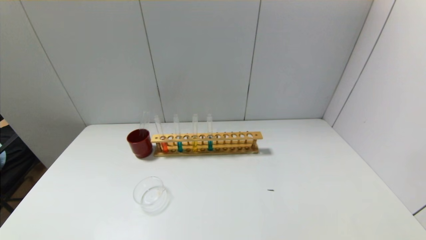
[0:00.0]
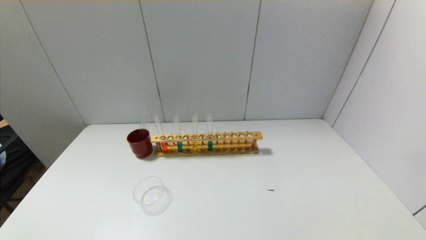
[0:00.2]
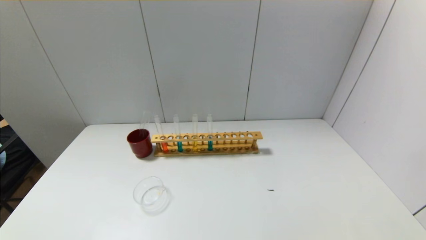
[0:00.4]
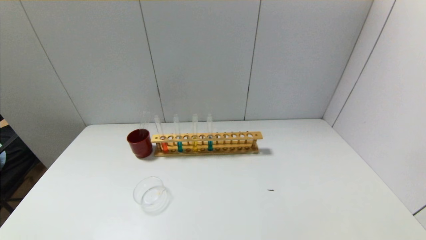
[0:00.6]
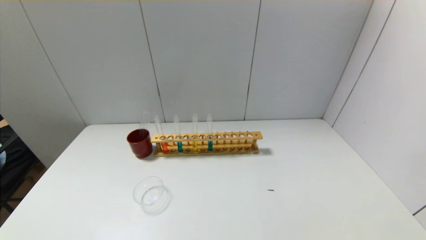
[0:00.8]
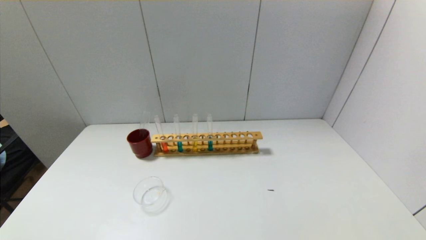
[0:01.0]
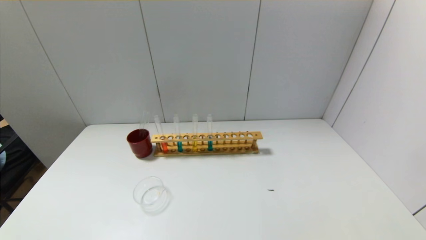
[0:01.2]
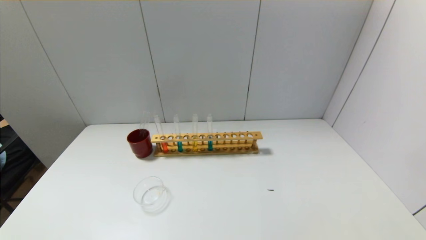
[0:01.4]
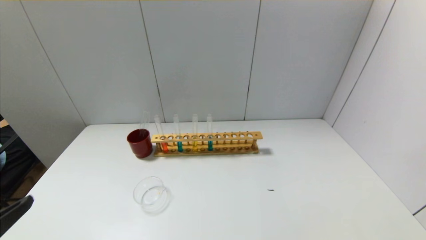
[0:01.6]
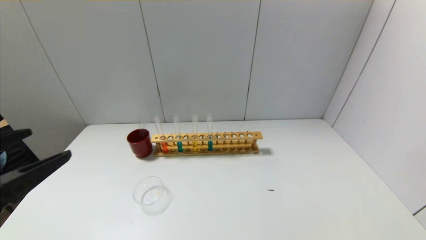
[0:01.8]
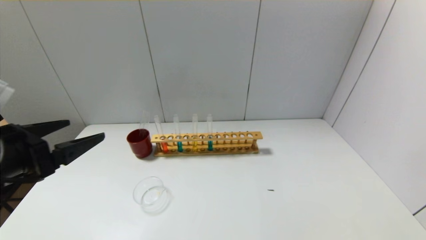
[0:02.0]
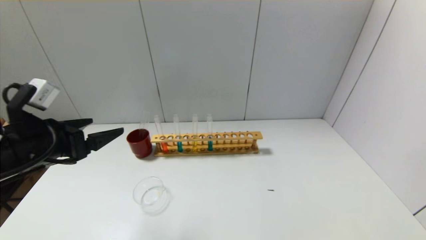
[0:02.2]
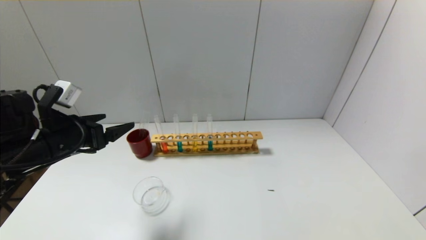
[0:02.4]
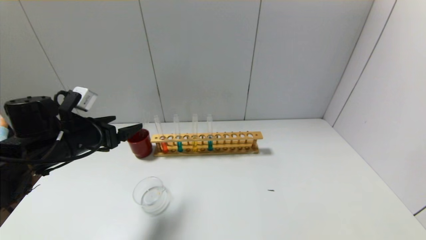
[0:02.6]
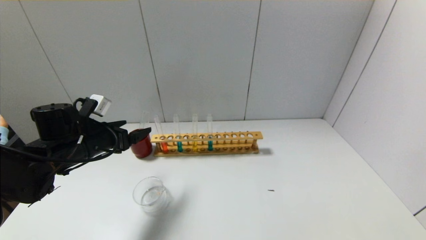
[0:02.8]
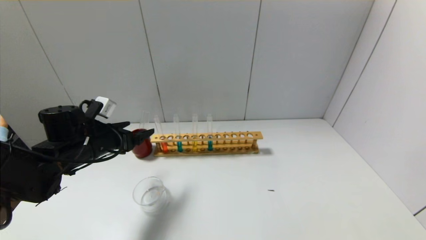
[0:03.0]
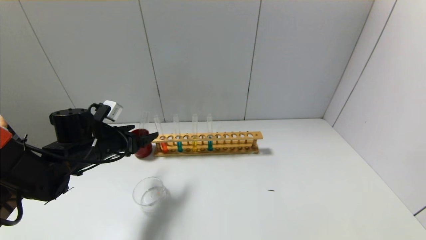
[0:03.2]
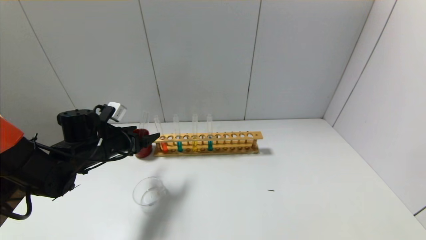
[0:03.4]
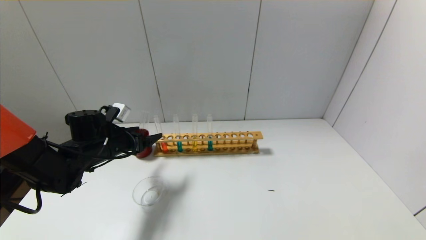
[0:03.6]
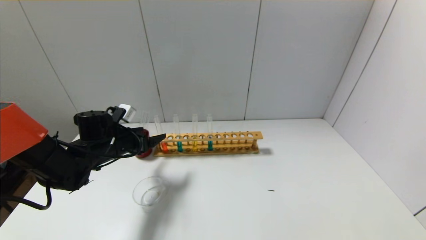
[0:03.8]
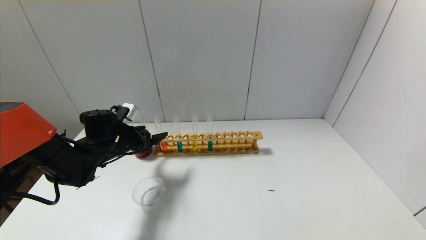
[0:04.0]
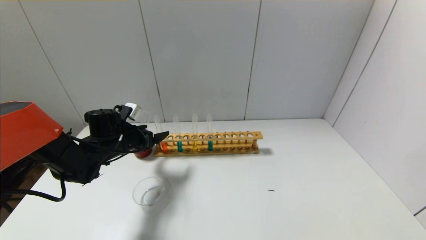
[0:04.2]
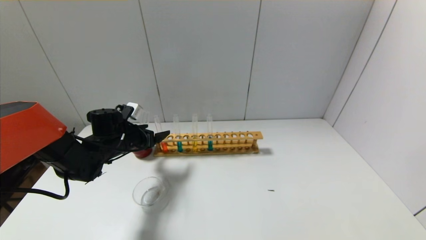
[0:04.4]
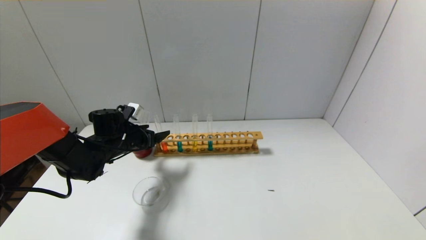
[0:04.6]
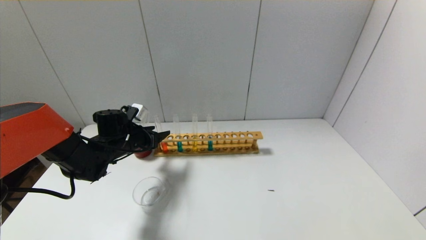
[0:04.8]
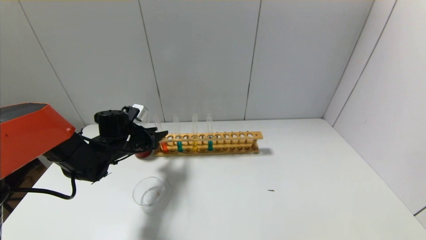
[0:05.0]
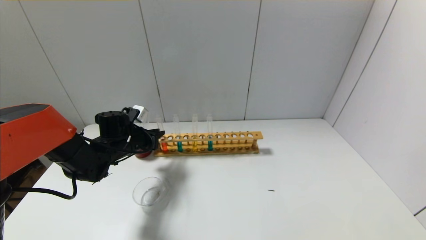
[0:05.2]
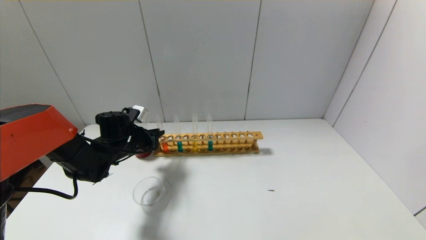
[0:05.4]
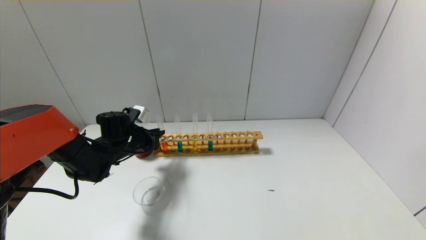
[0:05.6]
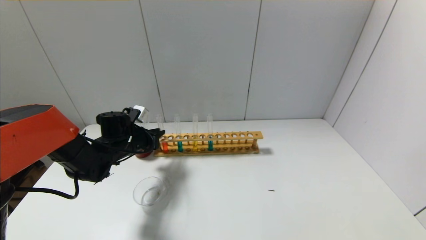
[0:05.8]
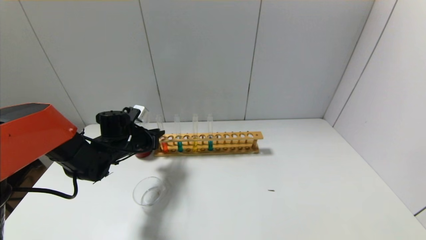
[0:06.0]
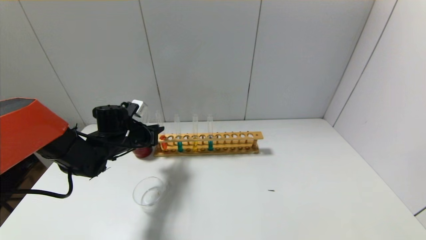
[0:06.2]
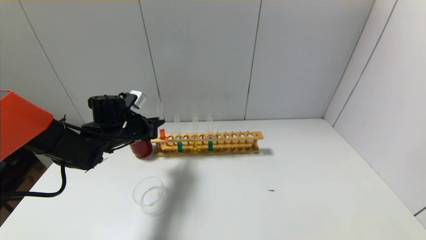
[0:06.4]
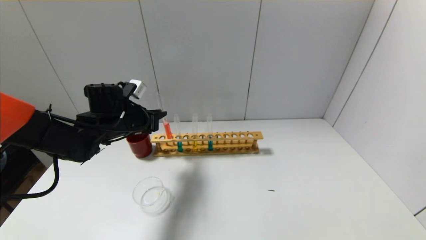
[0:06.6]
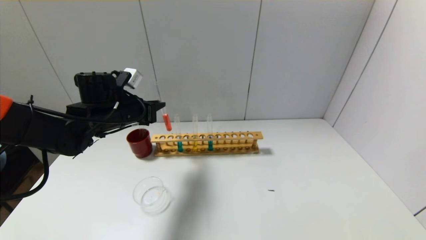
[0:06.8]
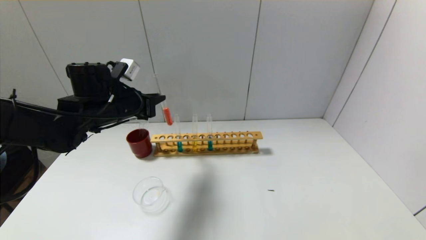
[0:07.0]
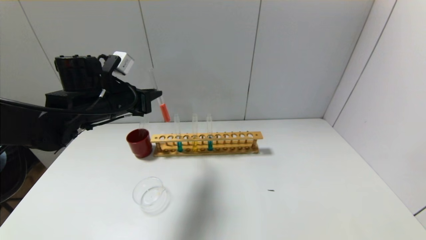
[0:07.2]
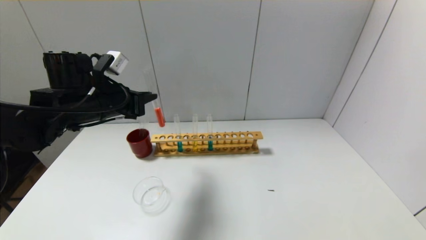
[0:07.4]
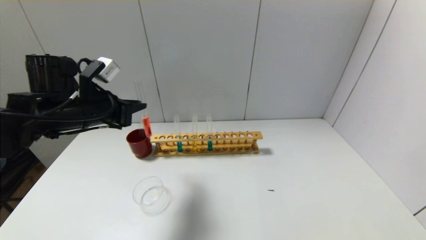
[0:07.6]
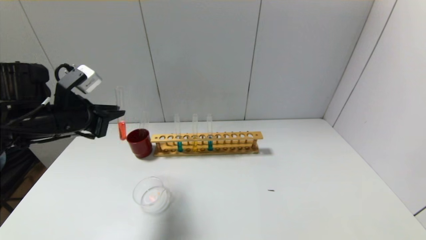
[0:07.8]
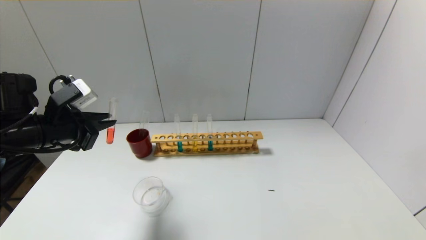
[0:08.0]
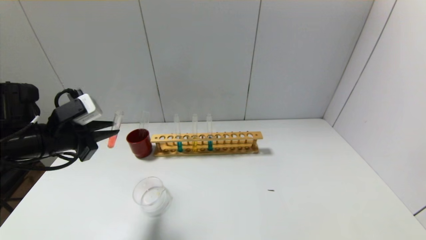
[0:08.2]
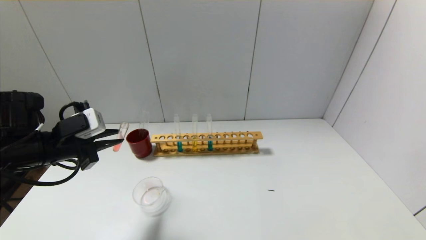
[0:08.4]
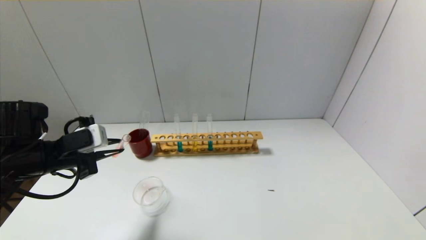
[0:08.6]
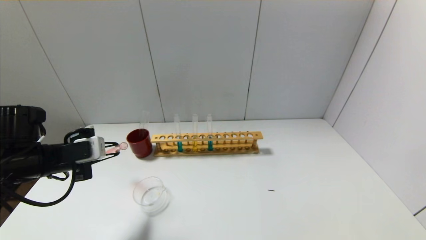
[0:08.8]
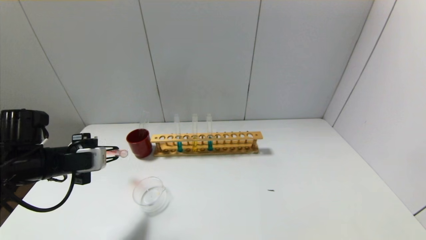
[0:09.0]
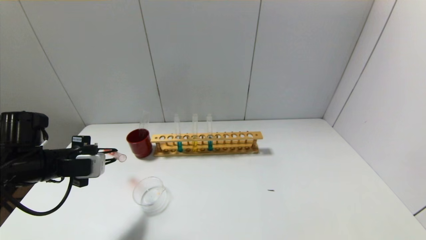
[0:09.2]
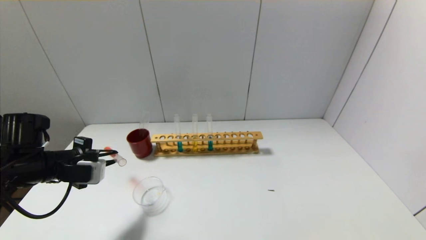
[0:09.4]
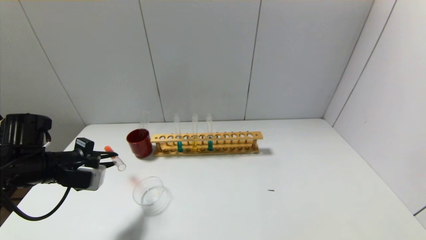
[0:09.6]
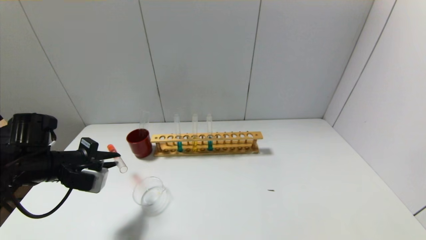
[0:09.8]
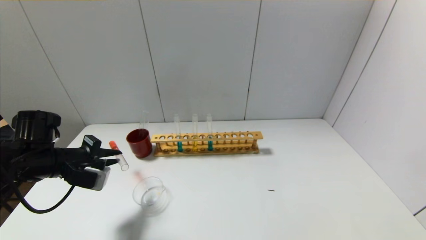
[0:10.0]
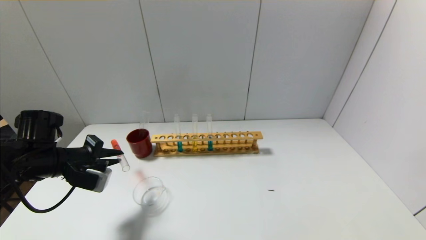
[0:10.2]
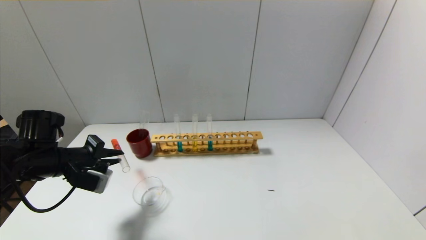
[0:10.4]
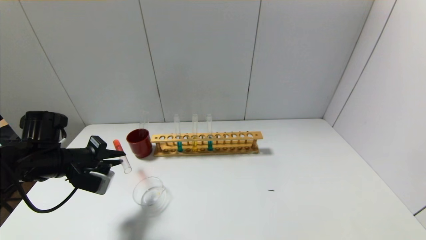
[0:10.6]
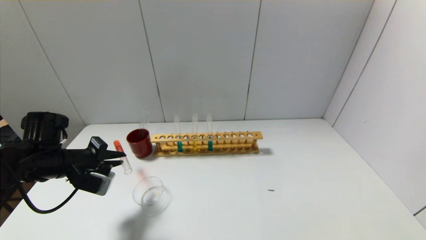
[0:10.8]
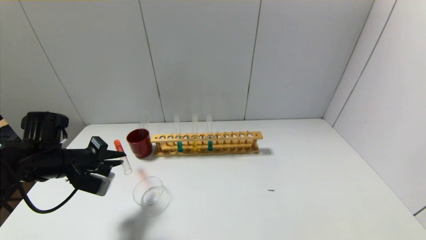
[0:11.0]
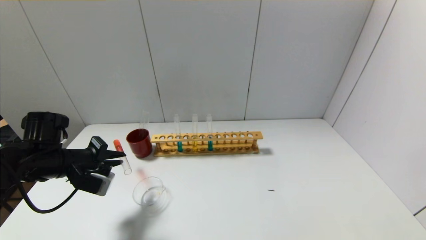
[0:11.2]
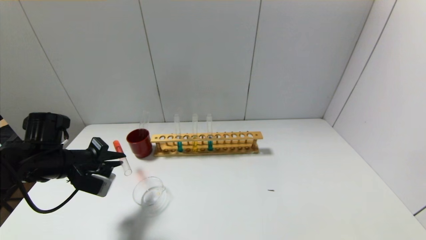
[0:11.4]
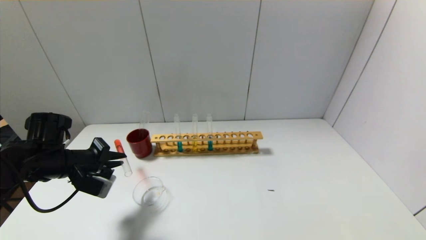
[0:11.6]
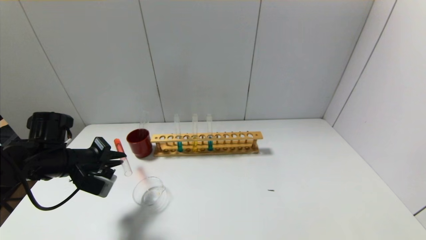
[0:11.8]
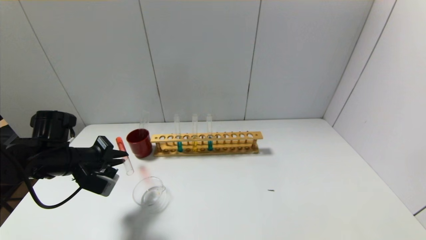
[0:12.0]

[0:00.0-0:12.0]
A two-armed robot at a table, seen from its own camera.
Step, 0:00.0 to 0:05.2: Grasp the red reagent with the left gripper.
0:01.6 to 0:03.0: The left gripper shifts about 25 cm forward.
0:03.0 to 0:04.4: The left gripper goes roughly 5 cm forward.
0:04.4 to 0:06.0: The left gripper closes its fingers.
0:06.0 to 0:07.6: The left gripper goes some 15 cm upward and backward.
0:07.6 to 0:09.0: The left gripper moves downward and to the left, approximately 10 cm.
0:10.4 to 0:12.0: There are only small adjustments of the grippers.

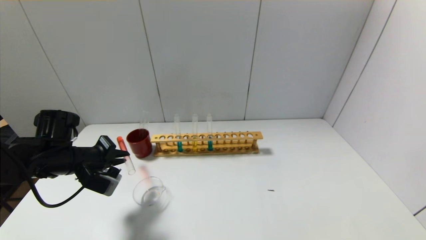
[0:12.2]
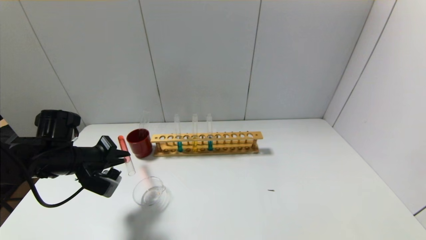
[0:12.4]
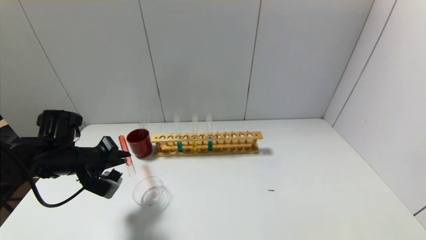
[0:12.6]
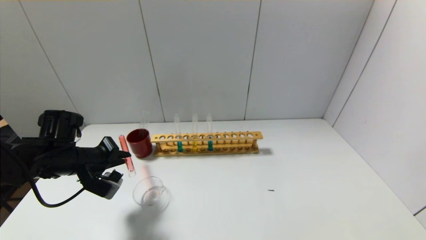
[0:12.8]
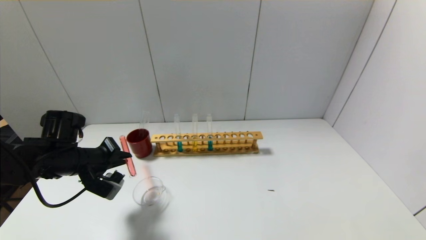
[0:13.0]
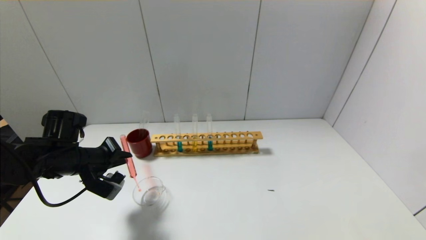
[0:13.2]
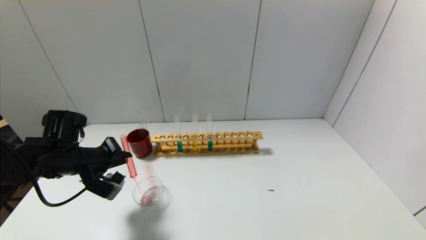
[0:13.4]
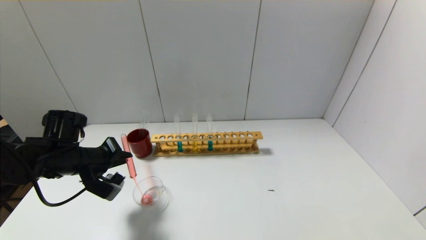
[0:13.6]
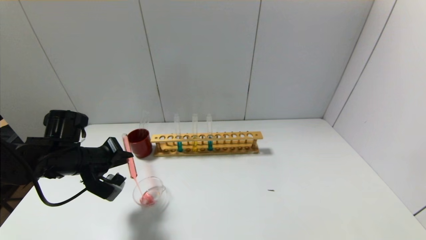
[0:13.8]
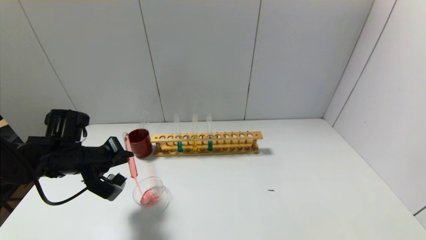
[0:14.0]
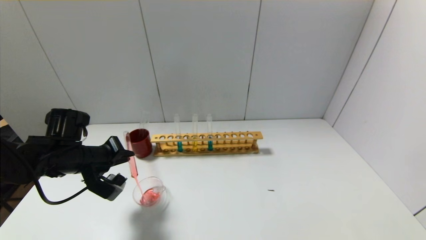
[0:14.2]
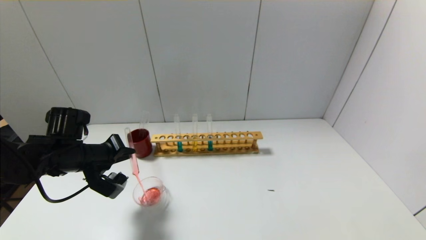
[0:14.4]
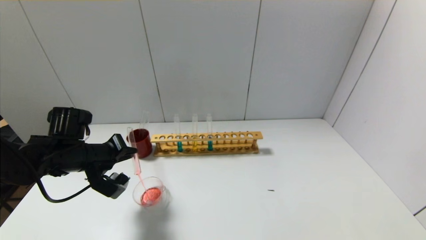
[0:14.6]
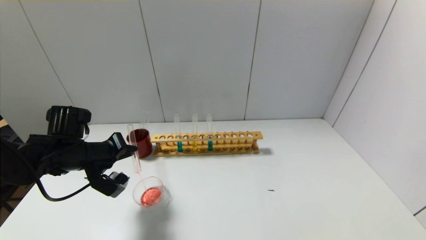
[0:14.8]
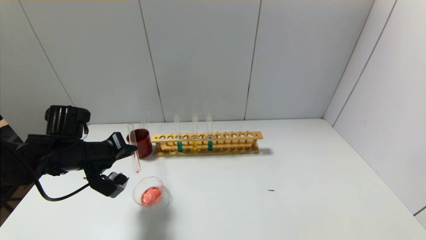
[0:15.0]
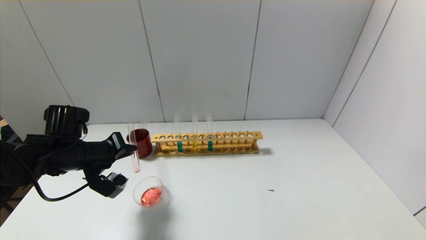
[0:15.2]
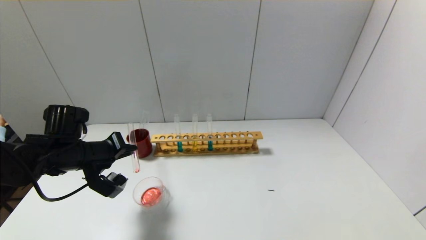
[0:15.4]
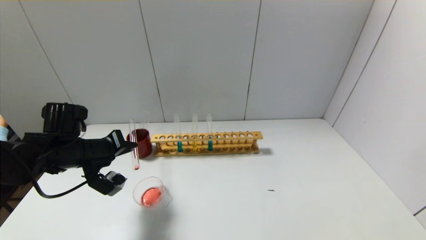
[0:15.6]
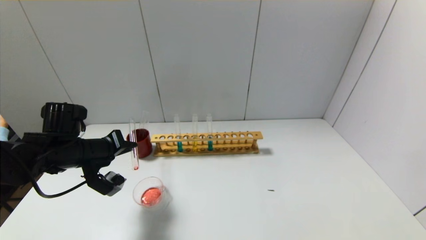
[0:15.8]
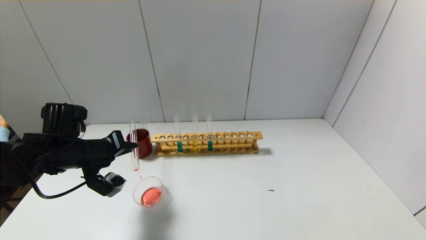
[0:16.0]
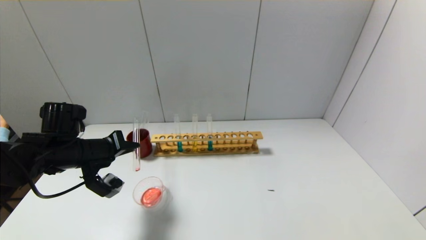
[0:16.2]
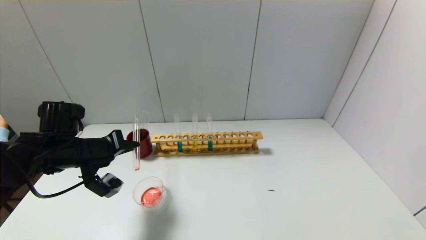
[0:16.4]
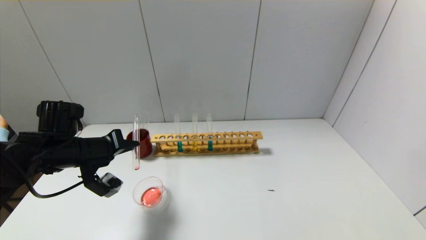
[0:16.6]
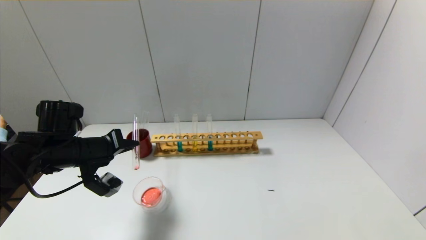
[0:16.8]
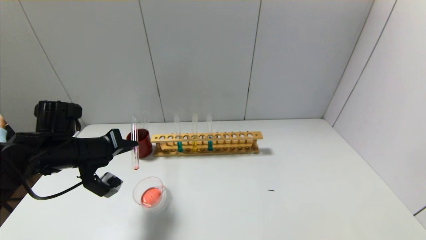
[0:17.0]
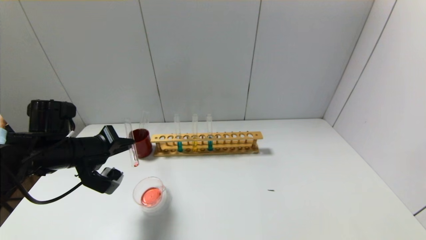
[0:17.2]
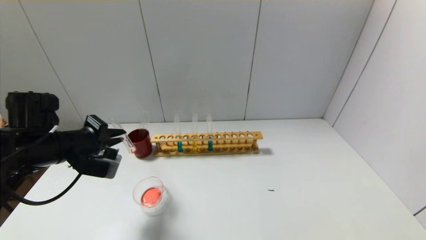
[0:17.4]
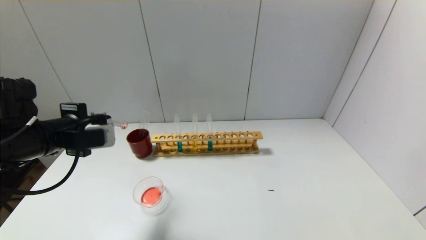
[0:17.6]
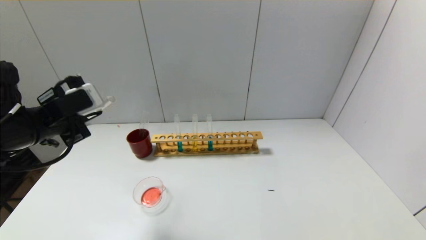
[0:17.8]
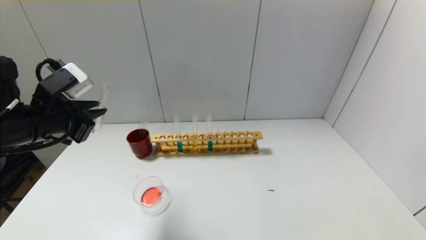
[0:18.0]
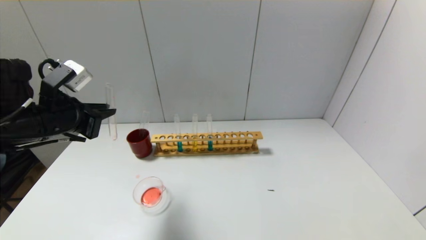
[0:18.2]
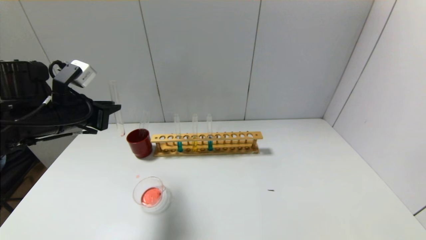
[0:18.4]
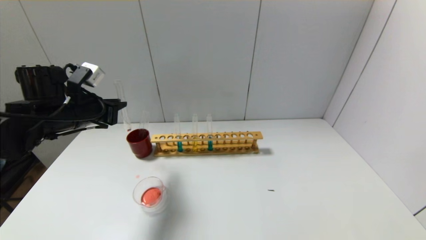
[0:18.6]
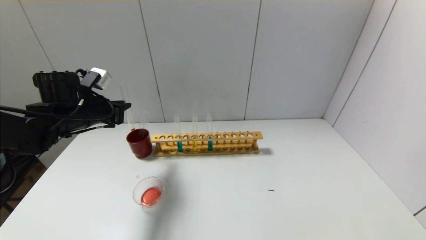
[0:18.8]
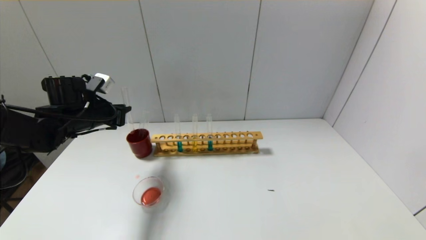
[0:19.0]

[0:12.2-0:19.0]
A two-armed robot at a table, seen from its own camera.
Step, 0:12.2 to 0:17.2: Pour the red reagent into the graduated cylinder with the left gripper.
0:12.2 to 0:15.0: The grippers move only a little.
0:15.0 to 0:16.2: There are only small adjustments of the grippers.
0:16.2 to 0:17.6: The left gripper heads upward, covering approximately 5 cm.
0:17.6 to 0:19.0: The left gripper moves forward, roughly 10 cm.
